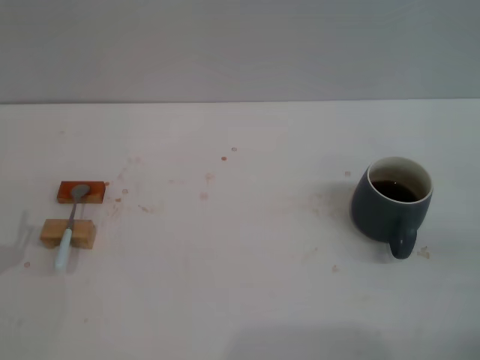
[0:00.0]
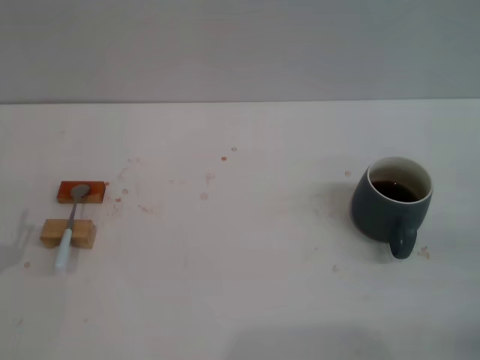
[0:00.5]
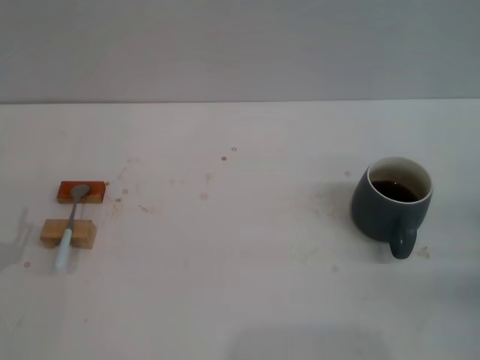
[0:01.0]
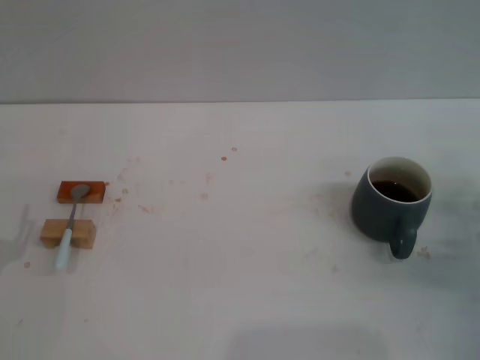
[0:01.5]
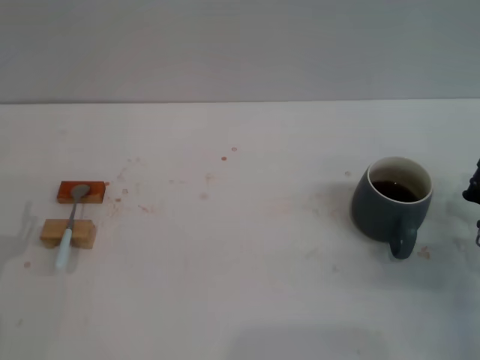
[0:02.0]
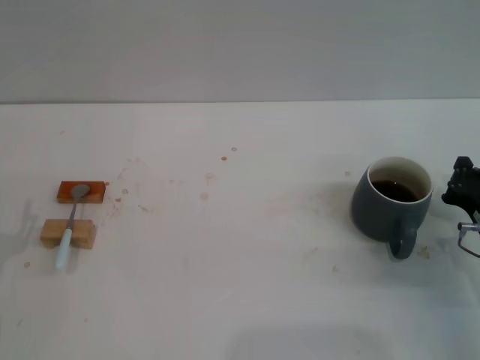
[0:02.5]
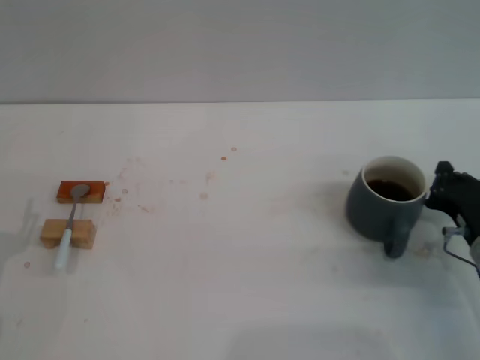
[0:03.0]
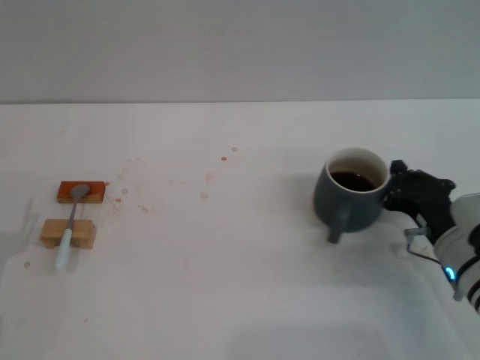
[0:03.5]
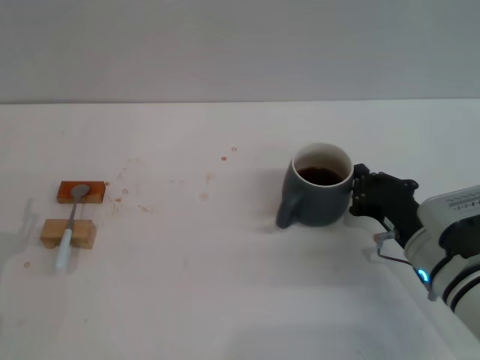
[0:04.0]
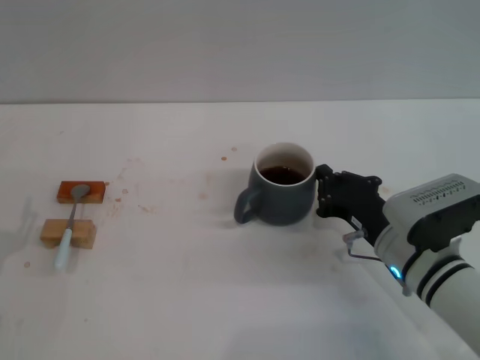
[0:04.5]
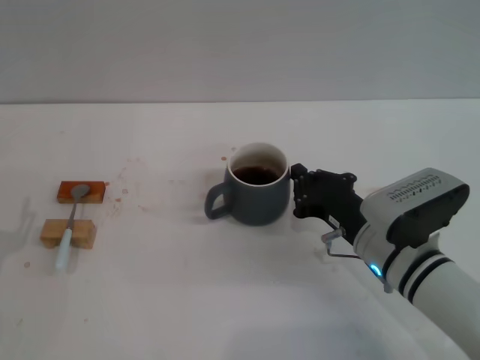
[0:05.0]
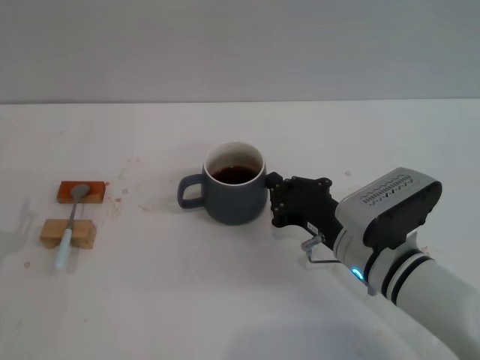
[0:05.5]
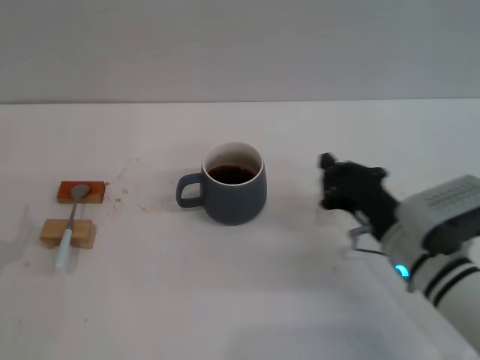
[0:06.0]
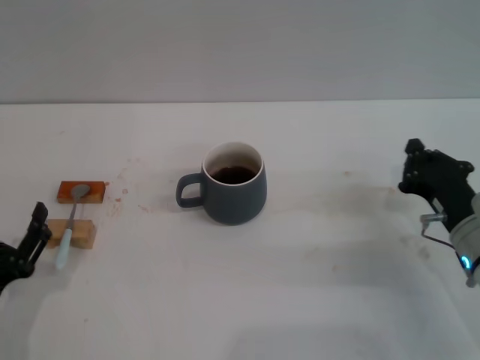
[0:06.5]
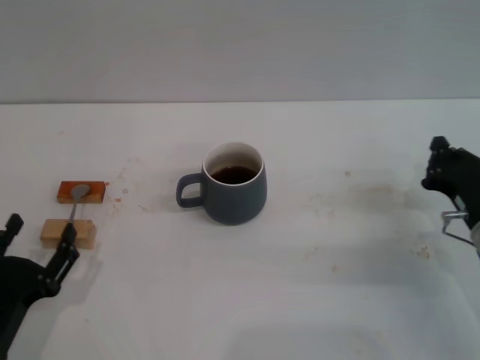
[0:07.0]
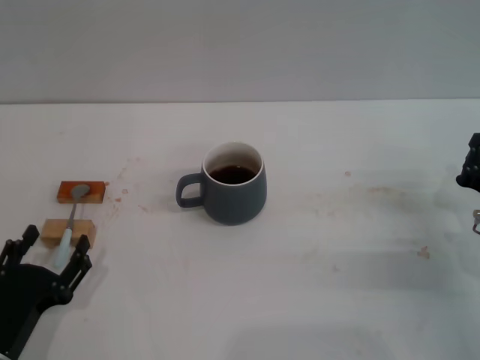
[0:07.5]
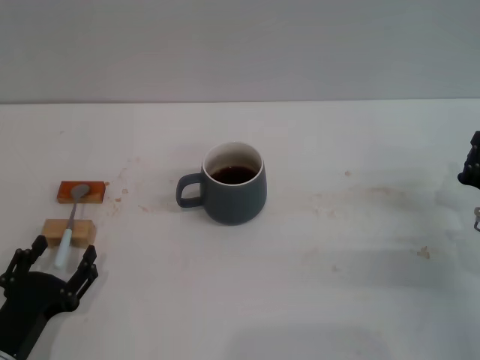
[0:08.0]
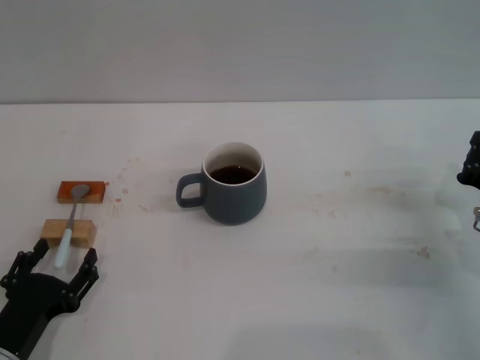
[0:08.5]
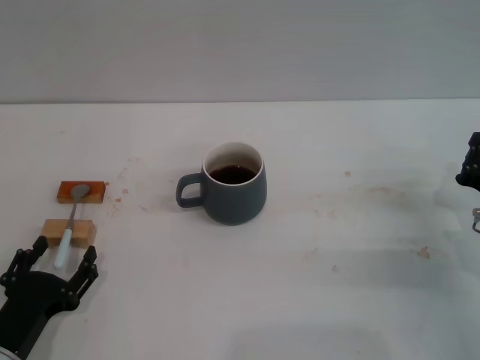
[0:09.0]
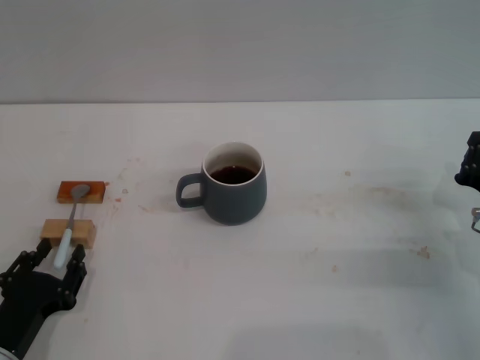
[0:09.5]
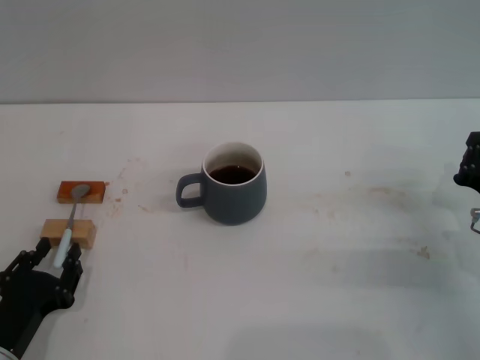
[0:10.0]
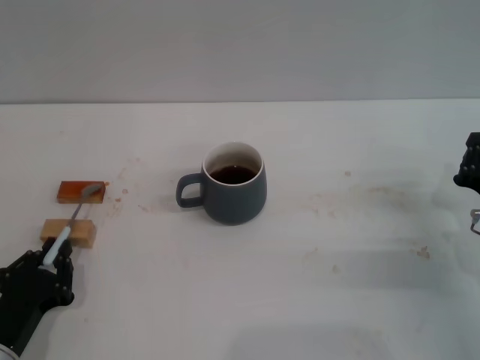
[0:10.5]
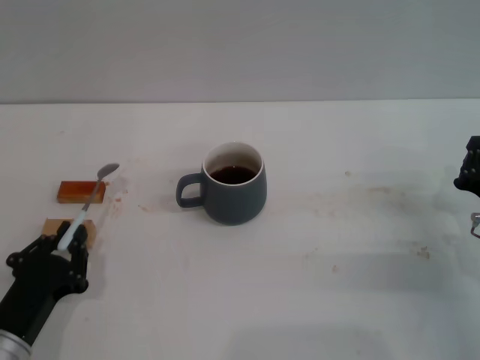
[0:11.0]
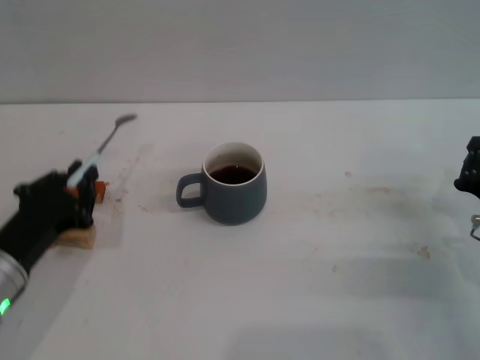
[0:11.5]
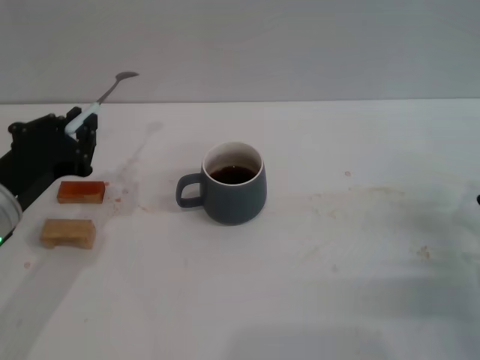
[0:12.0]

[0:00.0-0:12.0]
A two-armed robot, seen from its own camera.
Task of the whole recording: Move the grey cup to the center, lift the blue spoon, stir it three times in the cup, and put the spoon into the cup.
Step, 0:00.0 to 0:05.5: Move the cup with coffee to the center of view with the right gripper.
Step, 0:06.0 to 0:11.5: Pick up the spoon with the left gripper.
0:00.0 to 0:02.0: The right gripper heads forward and to the left, covering approximately 10 cm.
0:02.0 to 0:04.0: The right gripper shifts approximately 10 cm to the left.
0:06.0 to 0:08.0: The left gripper heads to the right, covering approximately 5 cm. The right gripper heads to the right, covering roughly 10 cm.
0:08.0 to 0:10.0: The left gripper closes.
0:10.0 to 0:12.0: The left gripper is displaced upward and forward by about 15 cm, and closes its fingers.

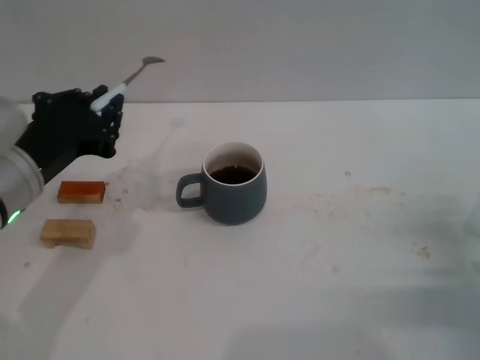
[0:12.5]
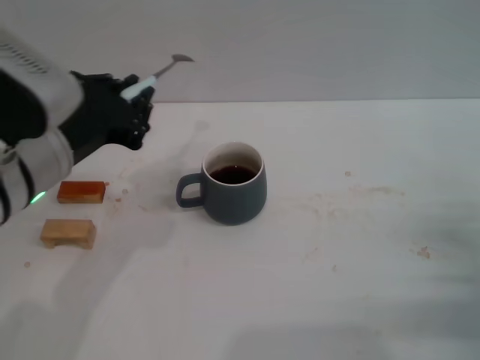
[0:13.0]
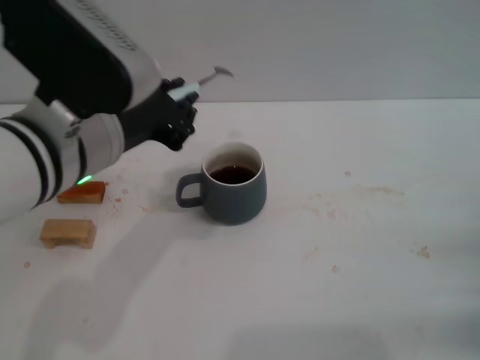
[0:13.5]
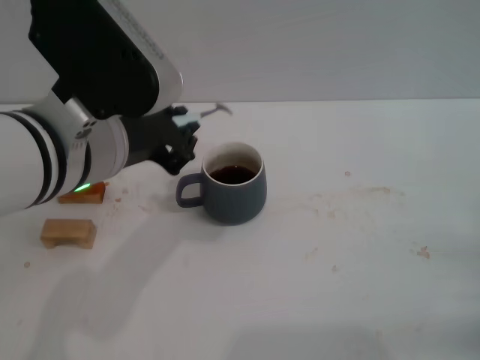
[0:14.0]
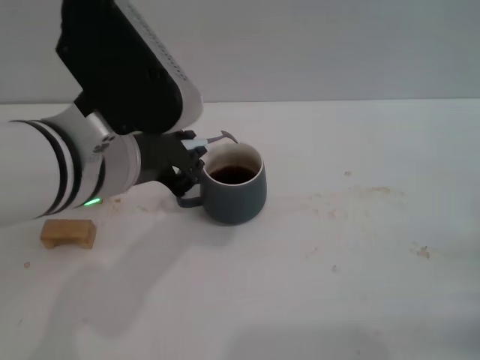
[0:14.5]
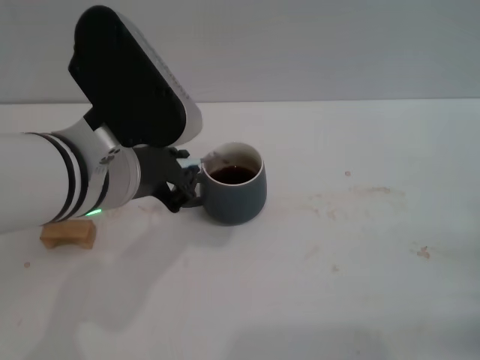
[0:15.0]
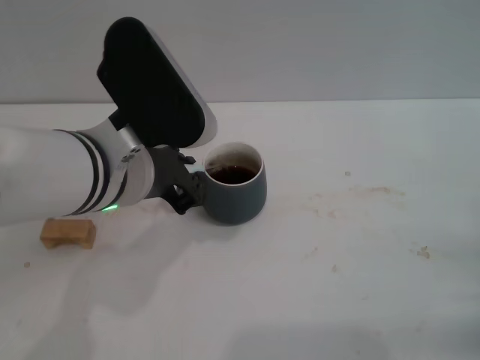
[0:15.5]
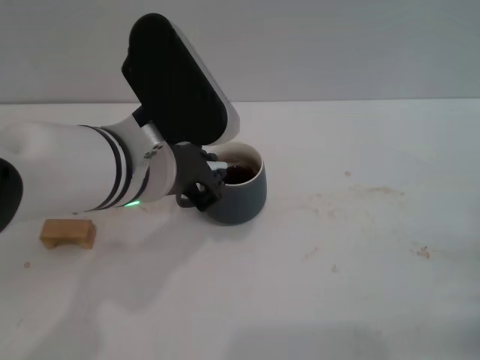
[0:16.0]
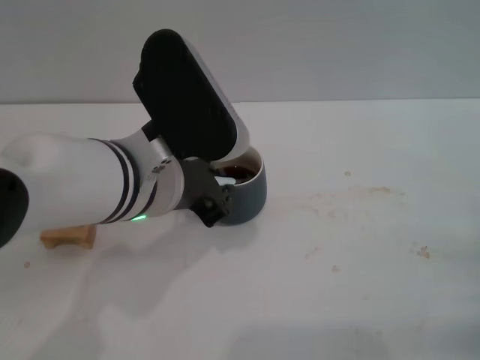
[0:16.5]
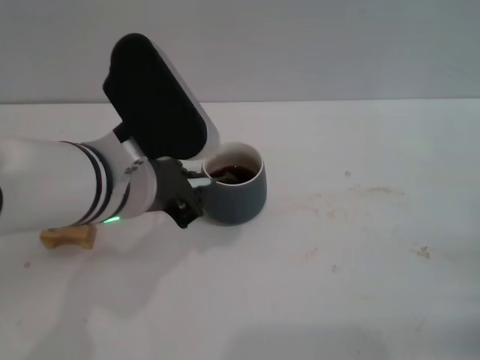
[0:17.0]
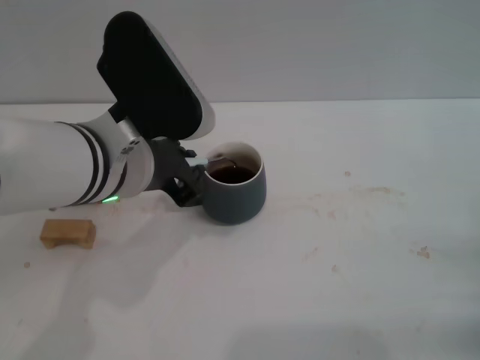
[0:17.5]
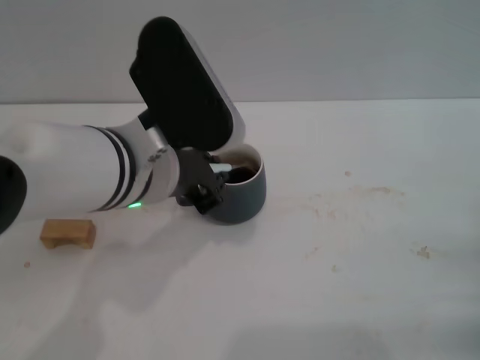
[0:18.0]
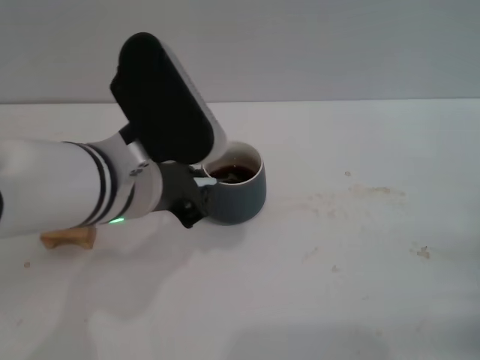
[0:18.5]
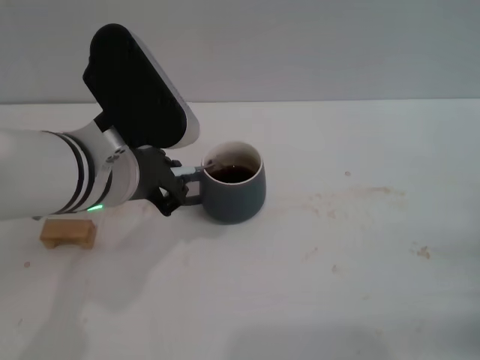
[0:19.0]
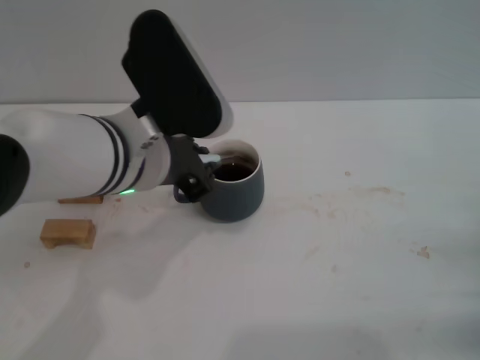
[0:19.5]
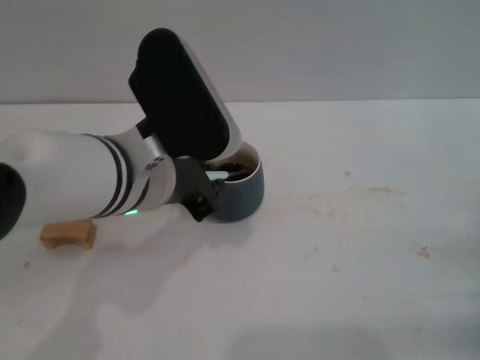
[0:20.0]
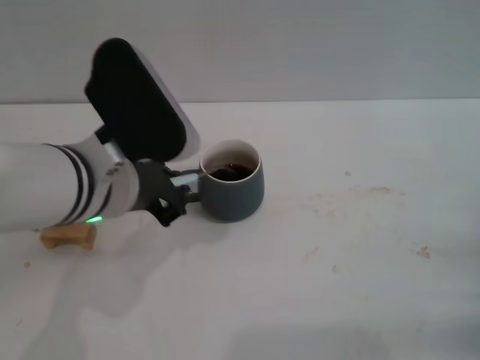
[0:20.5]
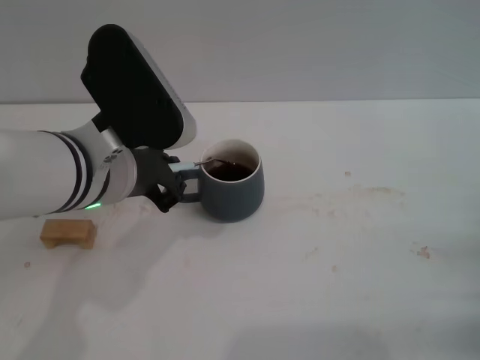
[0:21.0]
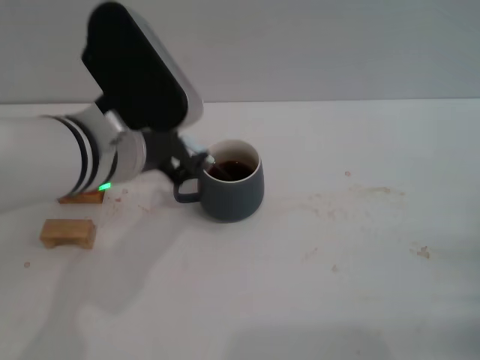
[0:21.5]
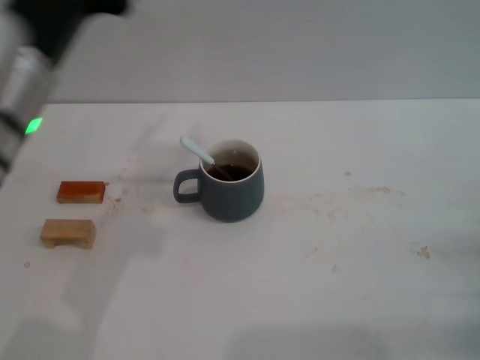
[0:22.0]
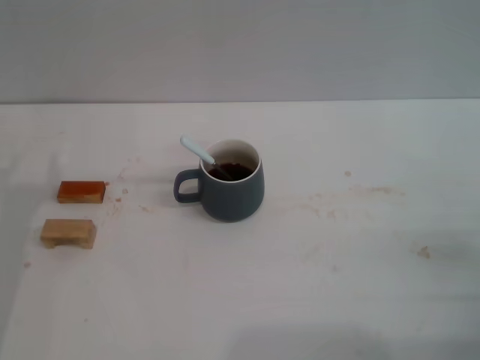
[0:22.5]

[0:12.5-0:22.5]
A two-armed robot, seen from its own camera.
Task of the whole recording: Move the grey cup to the center, lift the blue spoon, stir it three times in the cup, and put the spoon into the cup.
Step, 0:12.5 to 0:21.5: Stir the coffee in the cup with the left gripper.
0:12.5 to 0:14.5: The left gripper is displaced to the right and upward by roughly 10 cm. Meanwhile the right gripper changes place by about 5 cm.
0:14.5 to 0:20.5: The grippers make only small movements.
0:20.5 to 0:22.5: The left gripper goes approximately 20 cm to the left and downward, and opens its fingers.

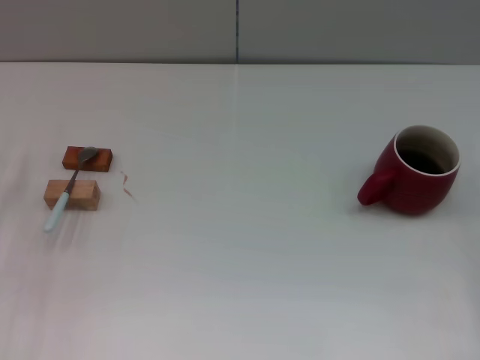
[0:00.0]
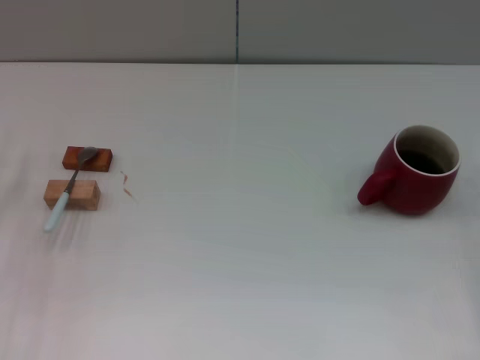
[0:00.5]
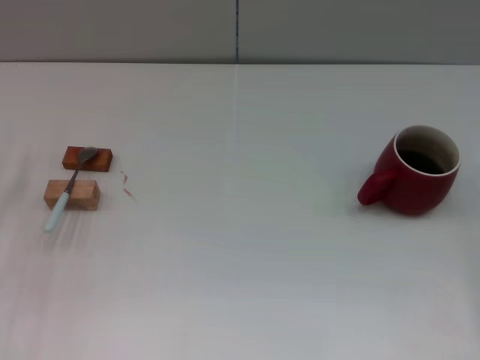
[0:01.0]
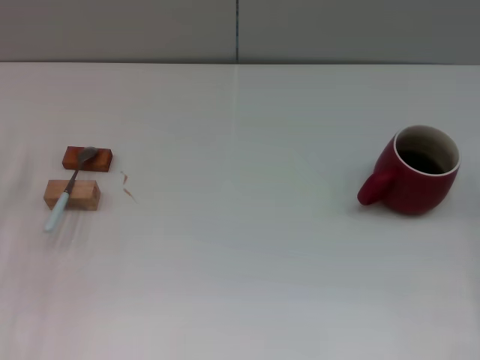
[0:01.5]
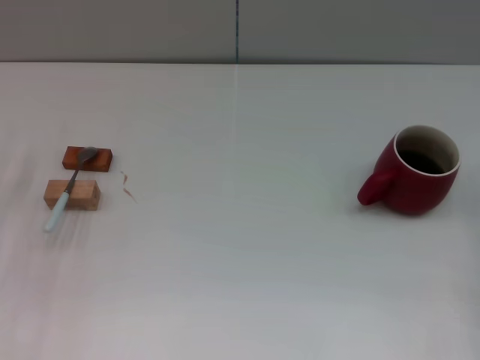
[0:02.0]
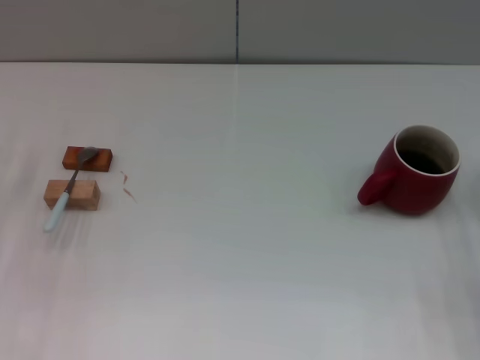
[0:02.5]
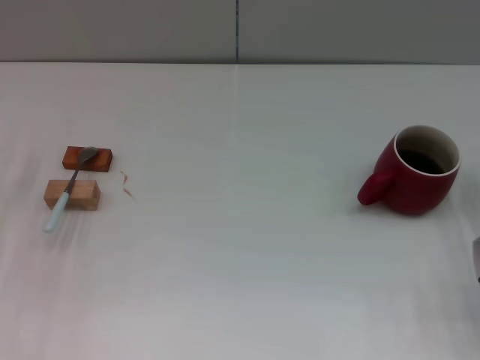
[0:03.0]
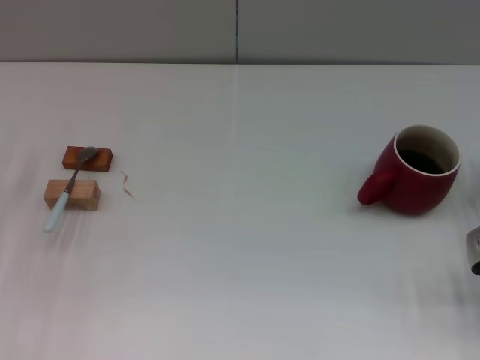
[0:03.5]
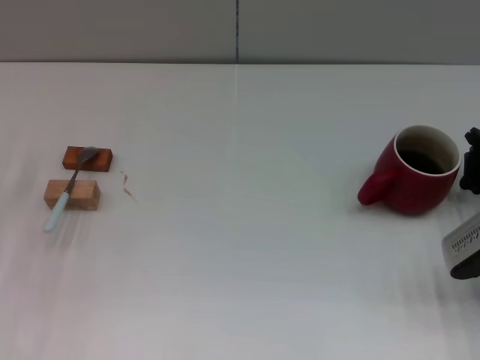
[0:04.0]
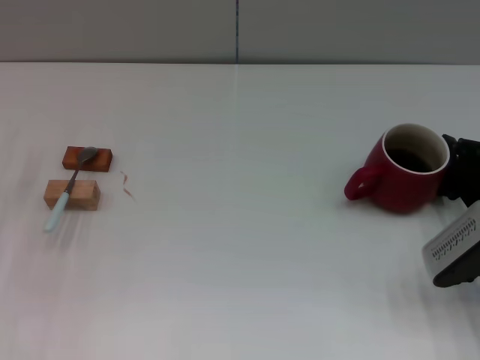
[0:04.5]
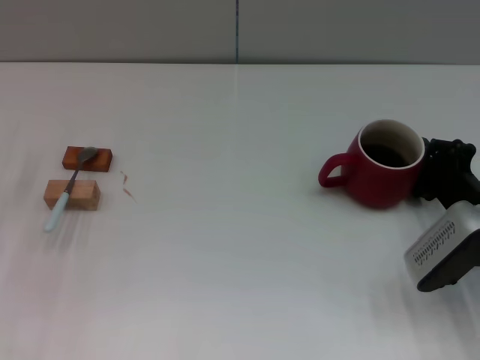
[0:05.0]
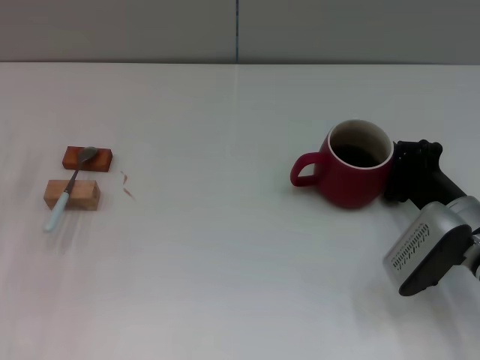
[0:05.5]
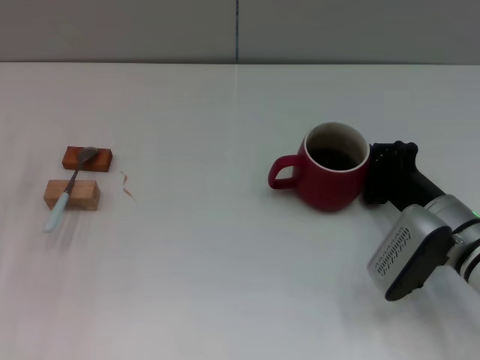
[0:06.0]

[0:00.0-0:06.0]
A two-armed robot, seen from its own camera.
Task of the whole recording: Move the red cup to the center, lift the blue spoon, stir it three times in the cup, and put the spoon into the cup.
0:02.0 to 0:04.0: The right gripper goes roughly 5 cm to the left.
0:04.0 to 0:06.0: The right gripper shifts roughly 10 cm to the left.
